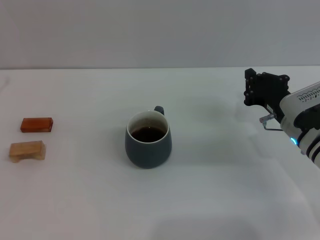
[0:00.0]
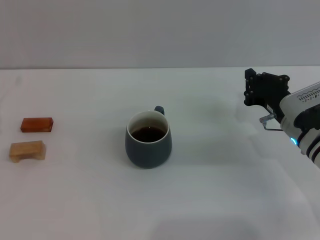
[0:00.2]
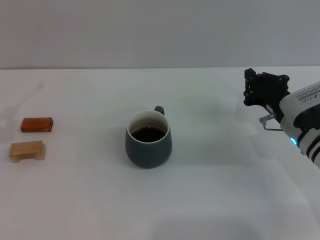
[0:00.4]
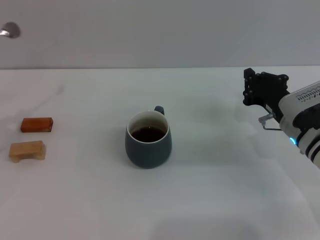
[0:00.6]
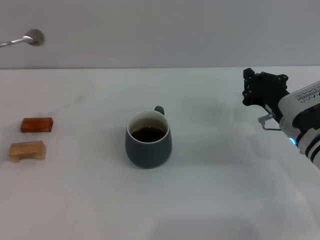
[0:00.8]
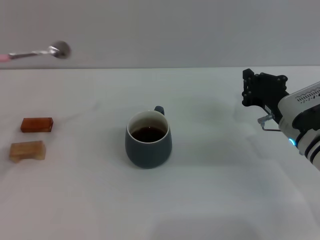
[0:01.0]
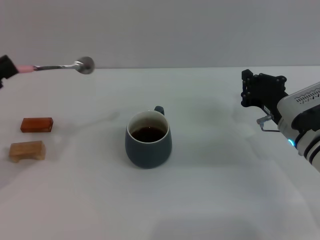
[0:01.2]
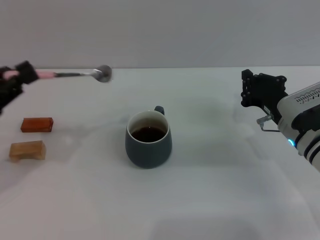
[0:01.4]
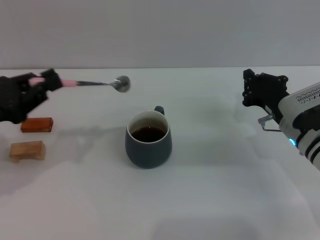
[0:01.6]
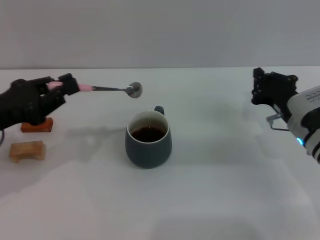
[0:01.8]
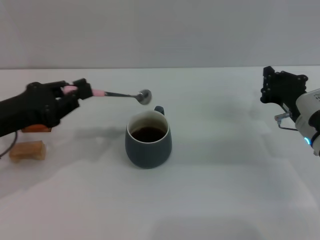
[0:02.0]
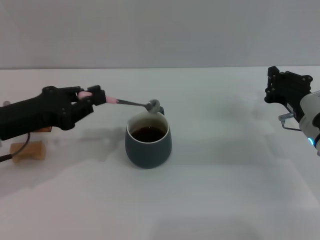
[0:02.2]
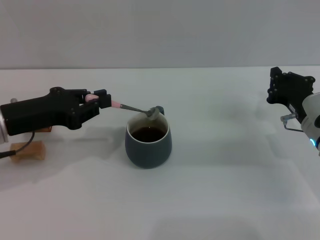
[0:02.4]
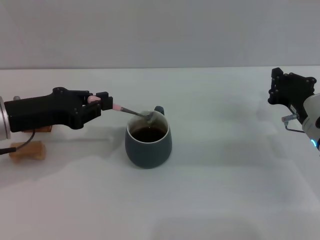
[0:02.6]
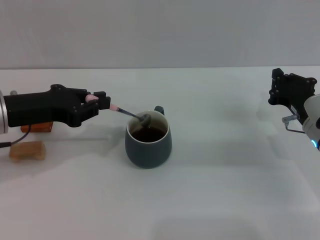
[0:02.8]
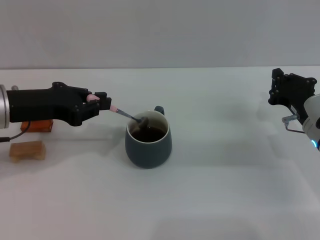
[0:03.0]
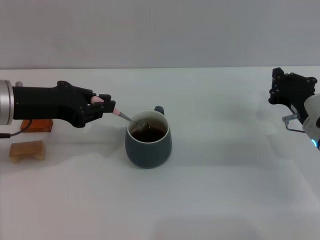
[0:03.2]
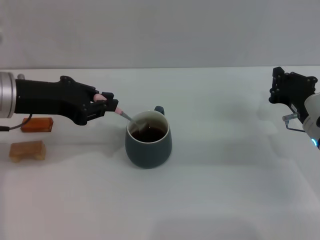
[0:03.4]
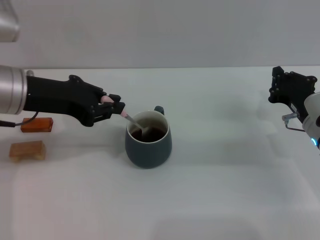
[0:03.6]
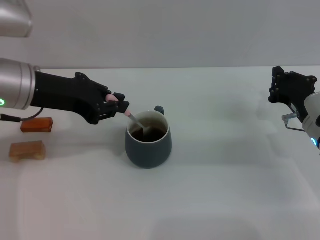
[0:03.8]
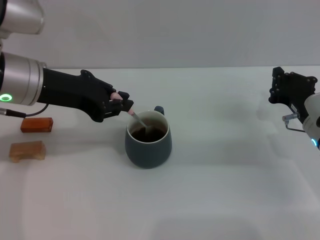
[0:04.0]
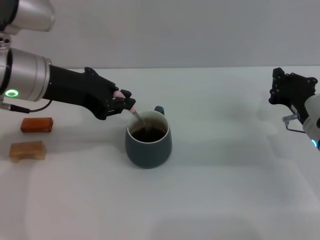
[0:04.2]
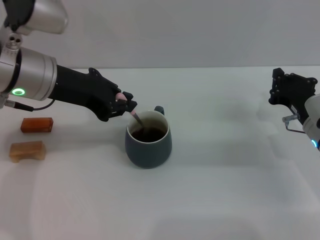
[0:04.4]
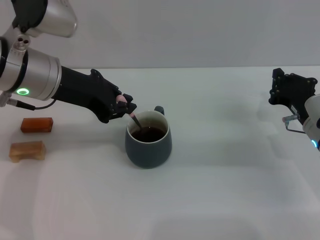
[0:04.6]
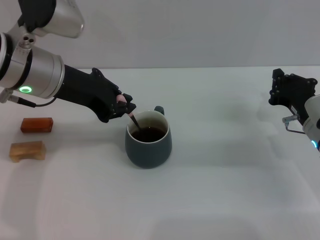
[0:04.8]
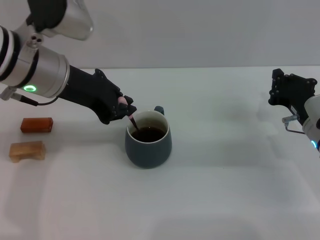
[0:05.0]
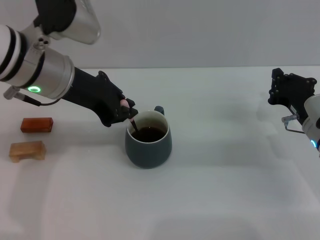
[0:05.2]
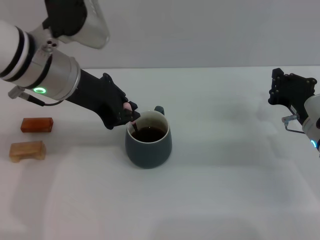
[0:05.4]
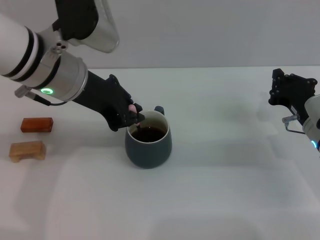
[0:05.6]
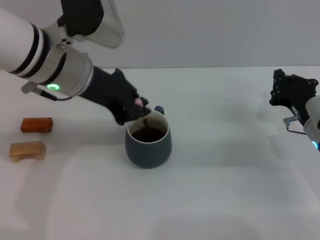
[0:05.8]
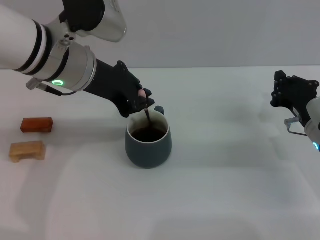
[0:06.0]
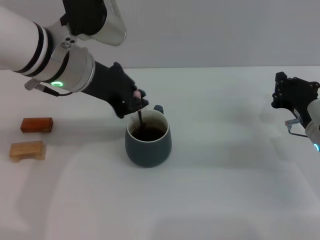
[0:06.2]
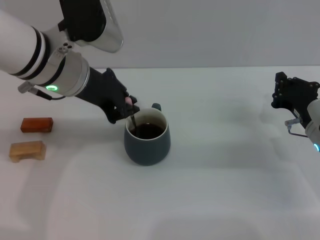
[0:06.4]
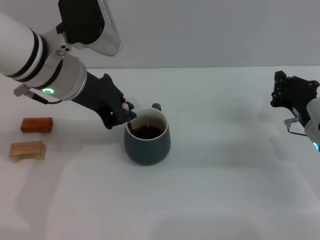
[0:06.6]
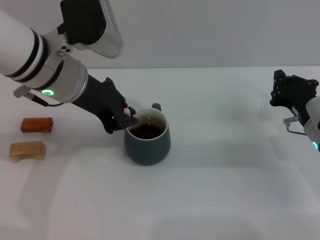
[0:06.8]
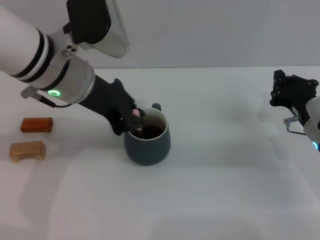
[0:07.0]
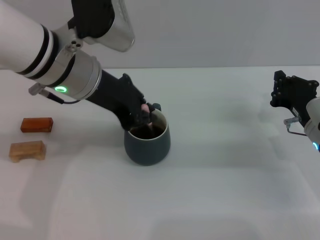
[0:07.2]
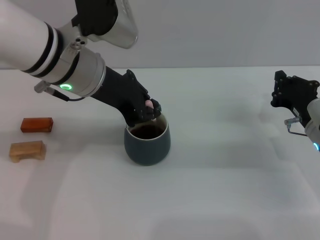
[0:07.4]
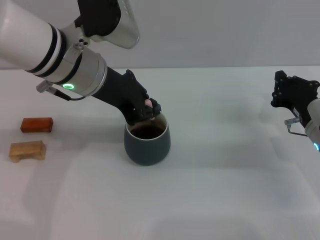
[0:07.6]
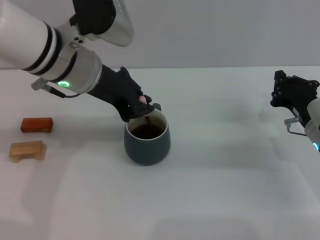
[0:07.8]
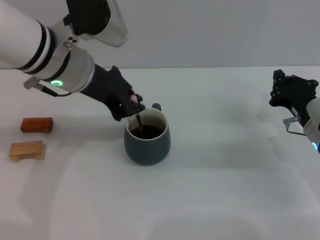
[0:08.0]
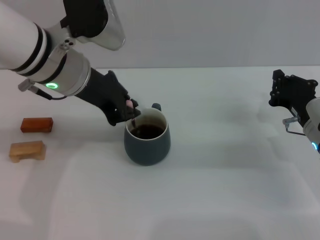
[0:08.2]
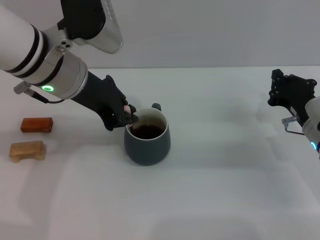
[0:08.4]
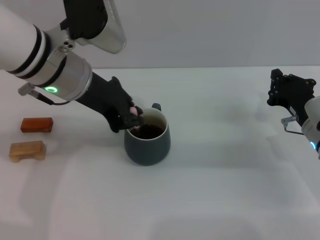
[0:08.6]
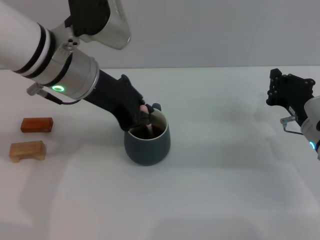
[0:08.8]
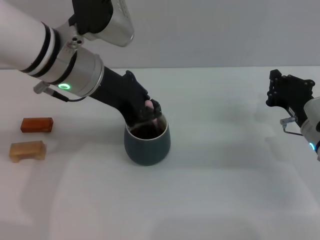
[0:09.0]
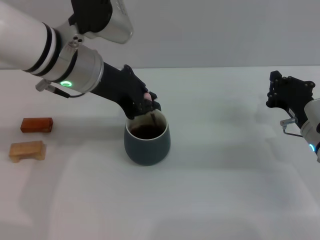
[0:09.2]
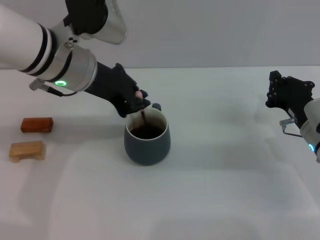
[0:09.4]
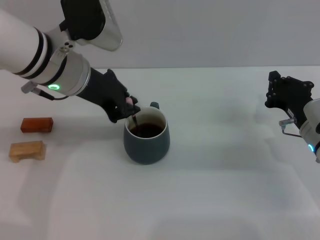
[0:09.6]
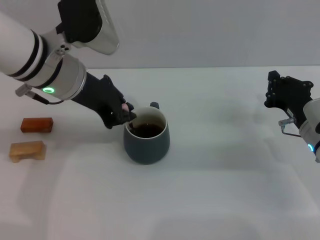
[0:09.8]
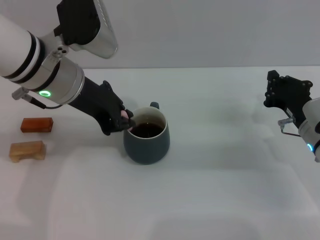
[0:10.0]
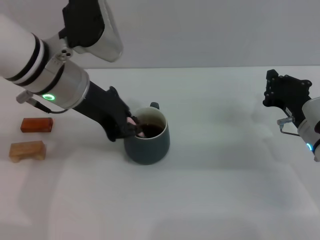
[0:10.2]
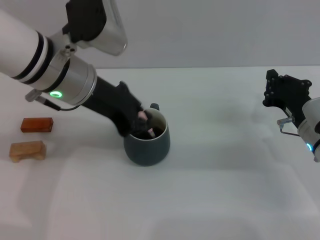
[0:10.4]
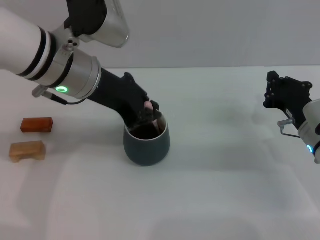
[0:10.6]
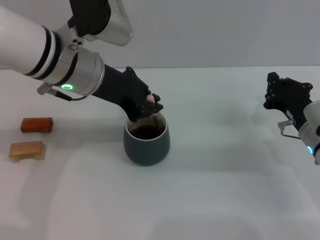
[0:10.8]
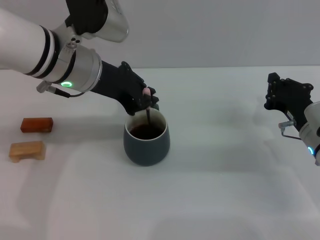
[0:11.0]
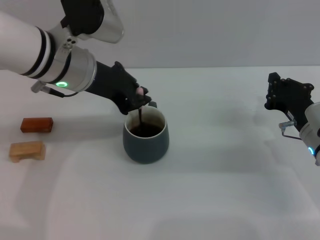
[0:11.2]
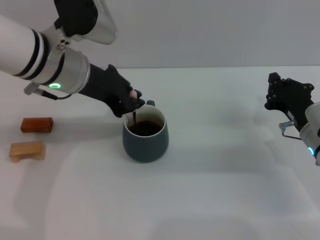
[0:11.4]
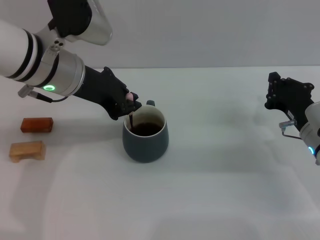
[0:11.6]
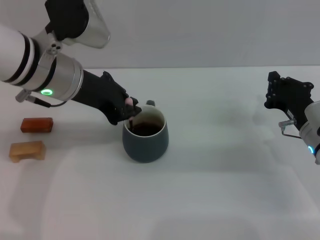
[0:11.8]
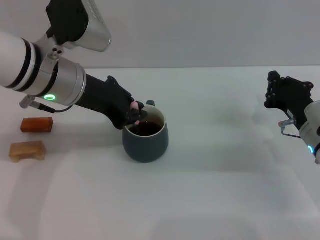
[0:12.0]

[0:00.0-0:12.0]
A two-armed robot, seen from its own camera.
Task of the whole recording: Move the grey cup to the center, lift the pink spoon, stir it three times in the cup, and put the spoon into the cup.
0:00.0 to 0:01.6: The left gripper travels to the right and upward by some 10 cm.
0:01.6 to 0:03.0: The left gripper is displaced to the right and forward by roughly 10 cm.
0:03.0 to 0:04.4: The left gripper travels to the right by about 5 cm.
0:04.4 to 0:06.0: The left gripper shifts by roughly 5 cm.
0:06.0 to 0:12.0: The grippers move only a little.

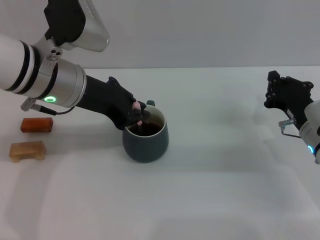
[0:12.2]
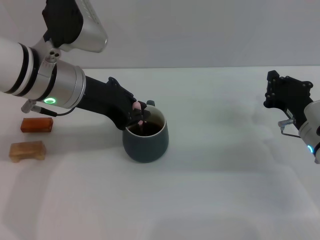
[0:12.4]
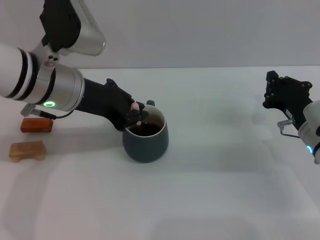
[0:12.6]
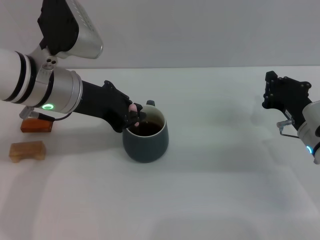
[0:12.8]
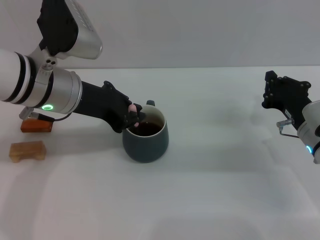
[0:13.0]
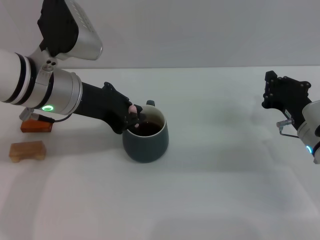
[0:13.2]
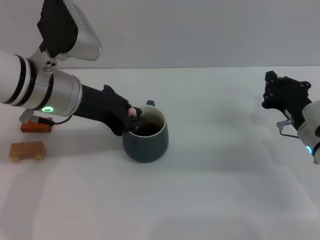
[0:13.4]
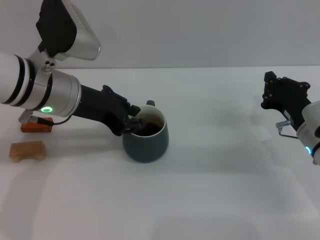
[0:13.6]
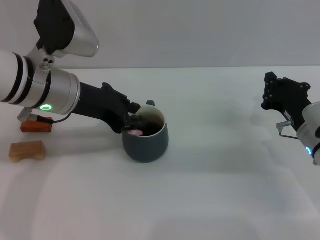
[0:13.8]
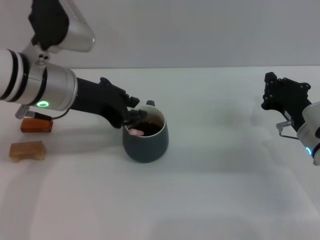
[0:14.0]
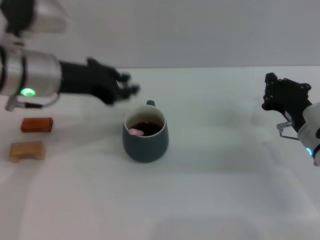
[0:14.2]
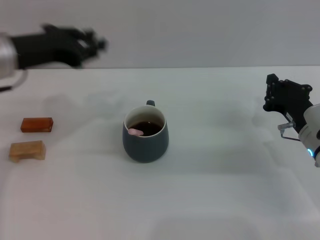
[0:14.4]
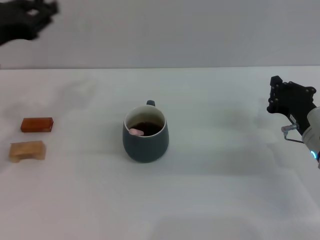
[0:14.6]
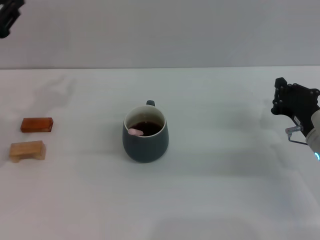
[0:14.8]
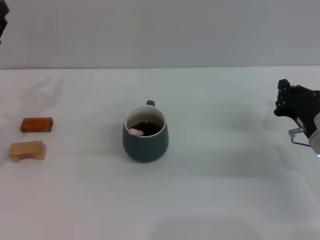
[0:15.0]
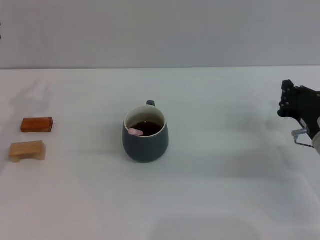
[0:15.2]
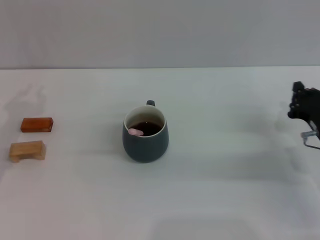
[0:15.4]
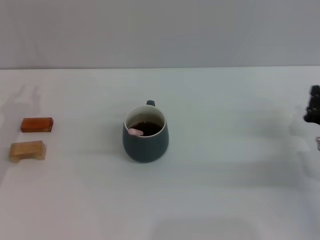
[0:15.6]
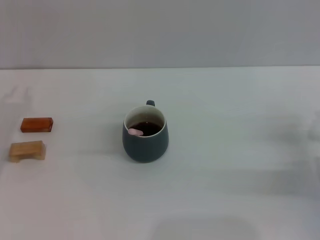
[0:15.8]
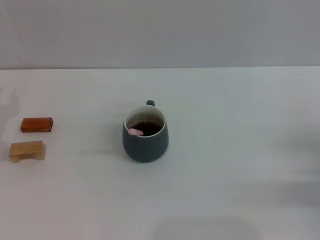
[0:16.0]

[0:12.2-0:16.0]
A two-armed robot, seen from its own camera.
Task of the whole recording: Move the grey cup to the center, lift the pink spoon, stir it three times in the cup, and put the spoon into the cup.
Step, 0:12.2 to 0:14.2: Stir the coffee in the cup with the left gripper.
0:12.2 to 0:13.4: The grippers stay close to where they were, moving slightly.
0:13.4 to 0:14.8: The left gripper is displaced to the left by roughly 15 cm.
0:14.8 to 0:16.0: The left gripper shifts about 10 cm downward. Meanwhile the right gripper goes roughly 10 cm to the right and backward.

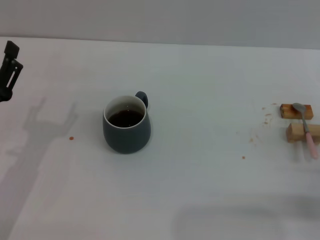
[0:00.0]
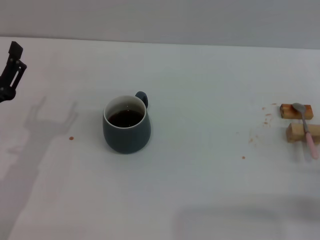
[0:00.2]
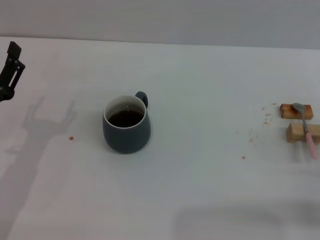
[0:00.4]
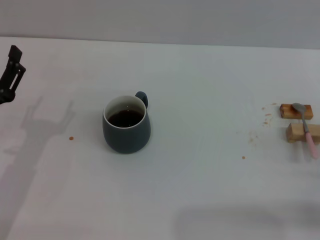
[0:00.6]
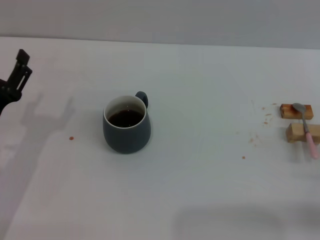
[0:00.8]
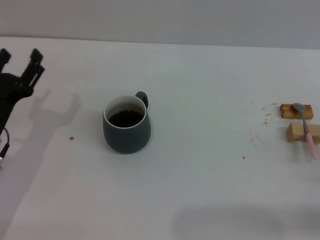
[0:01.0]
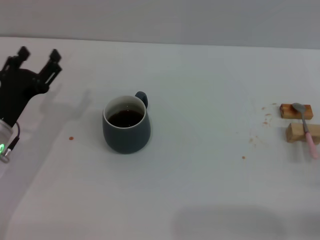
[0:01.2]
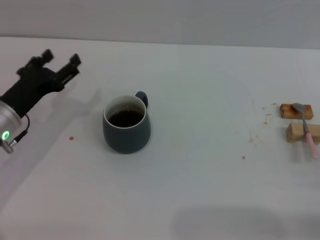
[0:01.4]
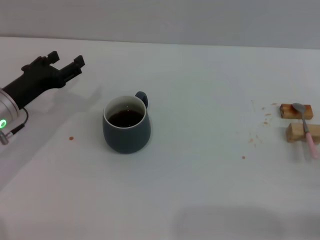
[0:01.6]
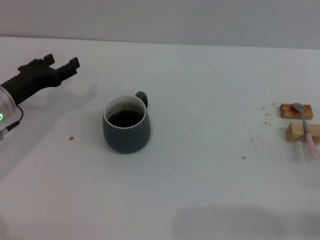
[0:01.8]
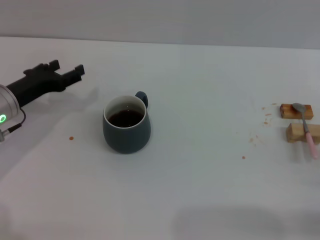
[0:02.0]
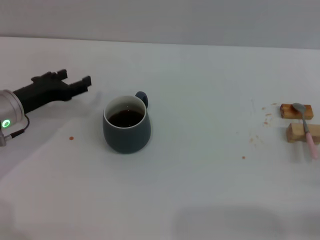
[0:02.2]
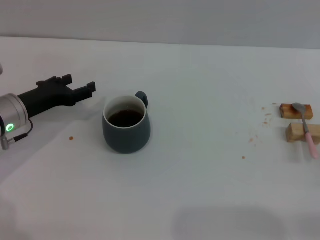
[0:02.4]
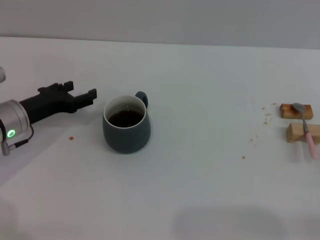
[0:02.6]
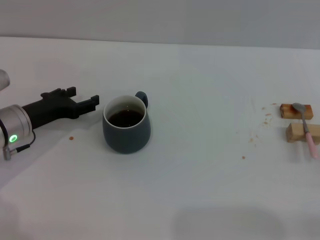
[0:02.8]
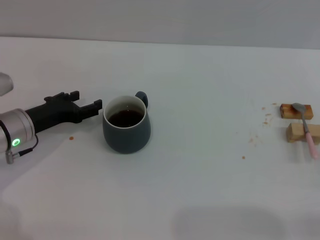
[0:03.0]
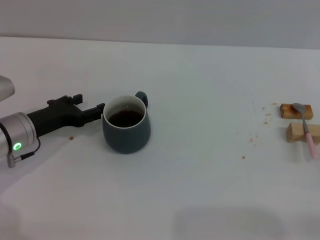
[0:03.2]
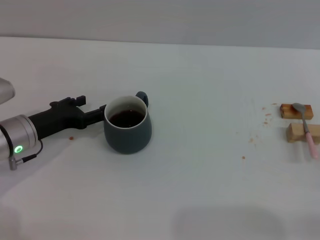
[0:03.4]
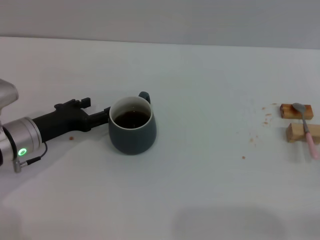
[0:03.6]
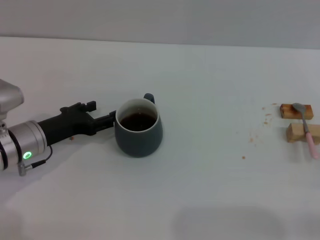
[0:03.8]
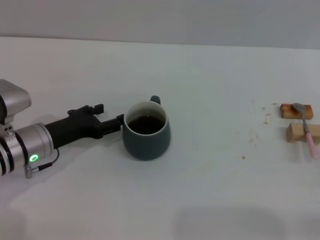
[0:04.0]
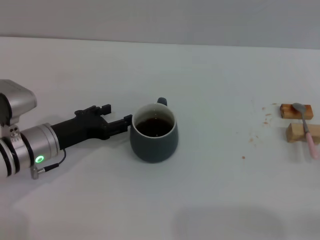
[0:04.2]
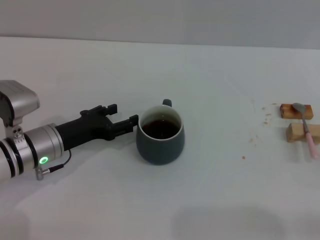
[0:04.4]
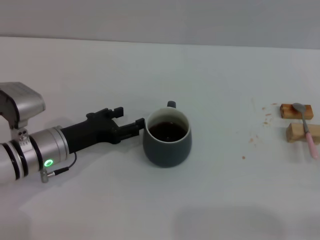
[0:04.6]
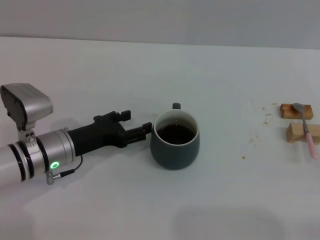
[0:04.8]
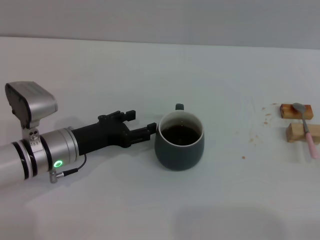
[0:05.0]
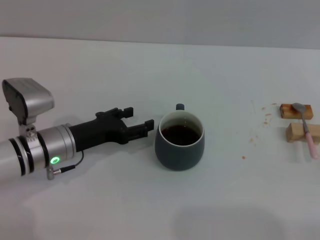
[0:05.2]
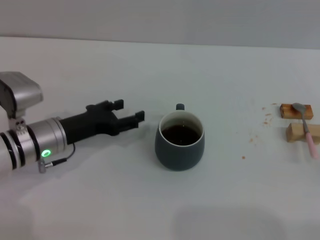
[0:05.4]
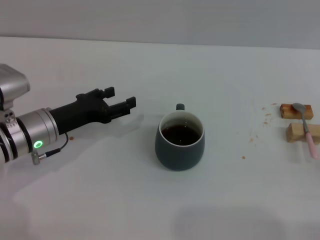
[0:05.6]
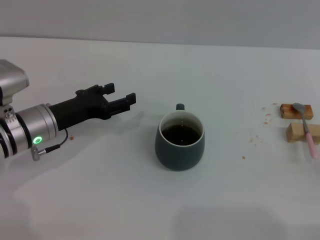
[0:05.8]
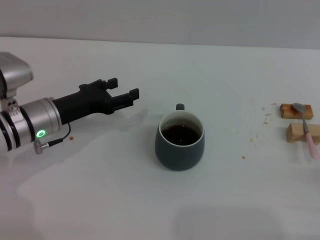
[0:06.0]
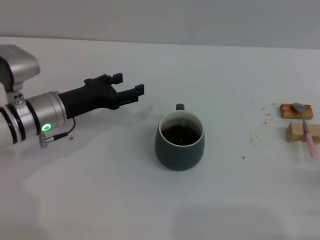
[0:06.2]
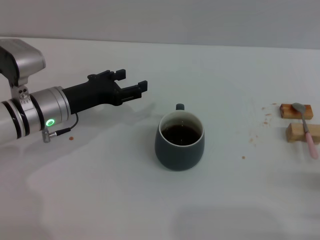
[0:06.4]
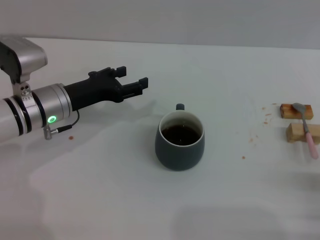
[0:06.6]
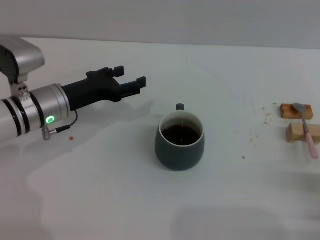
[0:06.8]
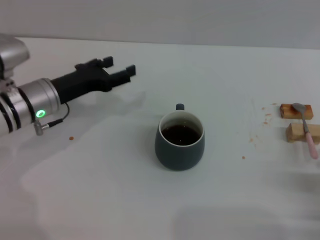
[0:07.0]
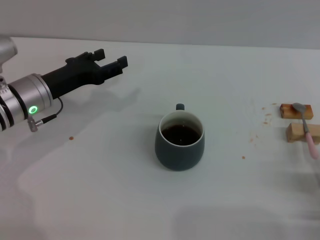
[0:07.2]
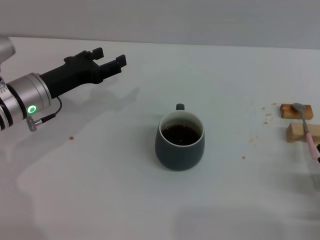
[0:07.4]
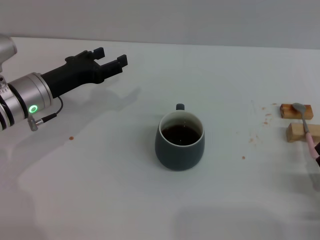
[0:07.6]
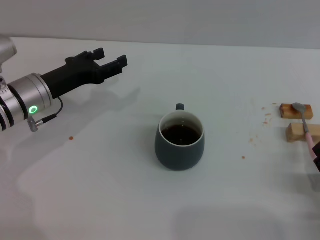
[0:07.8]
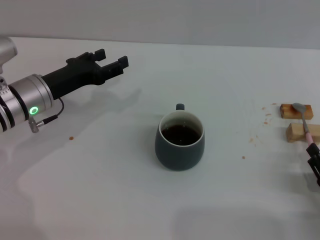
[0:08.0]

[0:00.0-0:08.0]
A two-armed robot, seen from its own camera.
Task of the whole recording: Move the grey cup to the center, lift the pink spoon, stir it three times in the cup, and put the spoon into the cup.
0:00.0 to 0:01.6: The left gripper moves forward, approximately 10 cm.
0:01.6 to 0:03.2: The grippers stay close to where they were, moving slightly.
0:03.2 to 0:04.8: The left gripper heads to the right, covering approximately 5 cm.
0:04.8 to 0:06.4: The left gripper changes place by approximately 5 cm.
0:06.4 to 0:08.0: The grippers stay close to where they were, moving slightly.
